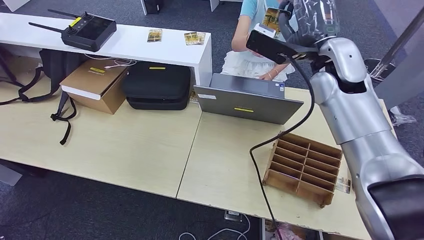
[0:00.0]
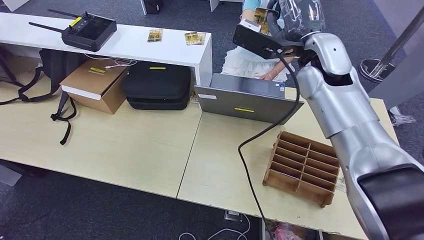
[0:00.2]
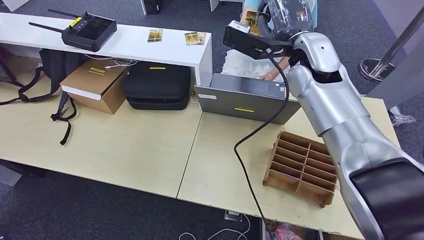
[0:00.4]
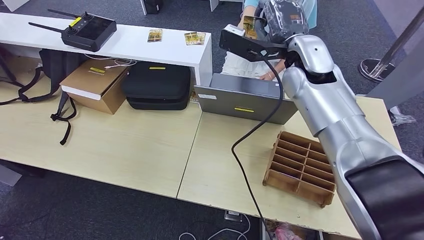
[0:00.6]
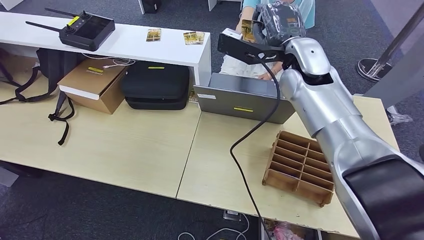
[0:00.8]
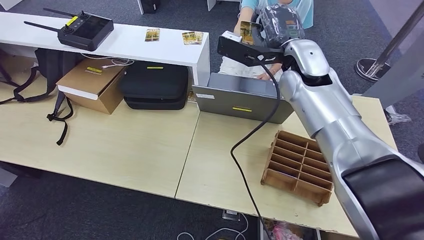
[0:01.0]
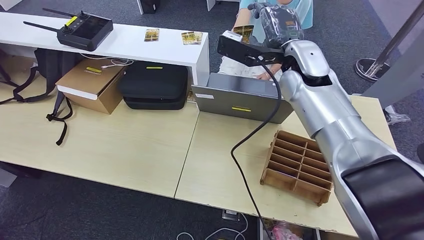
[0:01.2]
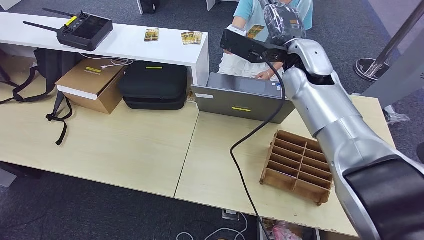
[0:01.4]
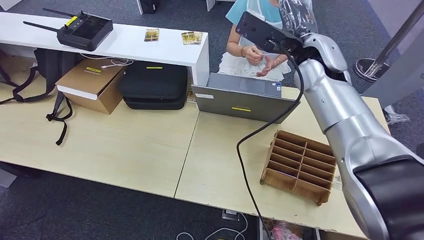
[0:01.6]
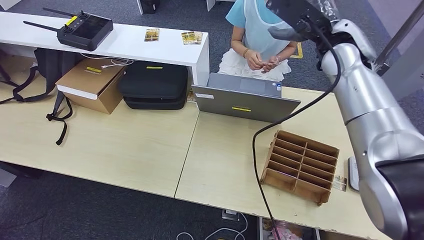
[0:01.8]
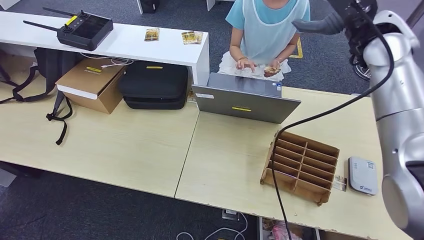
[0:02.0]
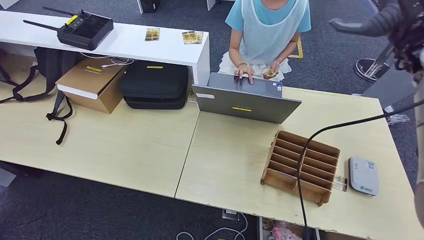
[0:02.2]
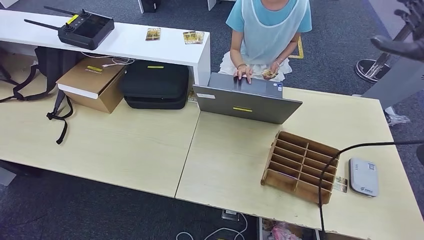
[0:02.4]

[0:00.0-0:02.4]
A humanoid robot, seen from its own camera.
Step, 0:00.0 to 0:02.4: Hand the room key to the person.
